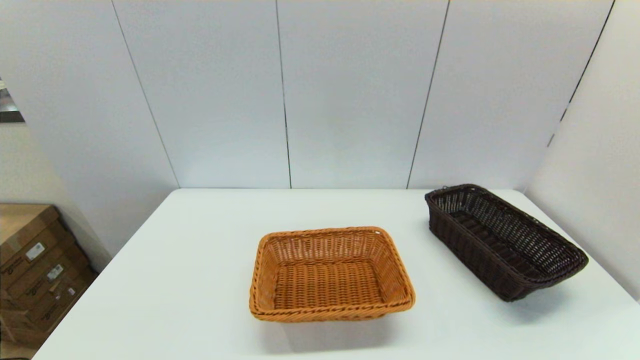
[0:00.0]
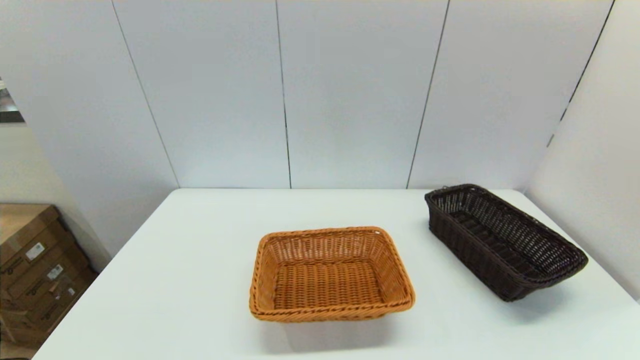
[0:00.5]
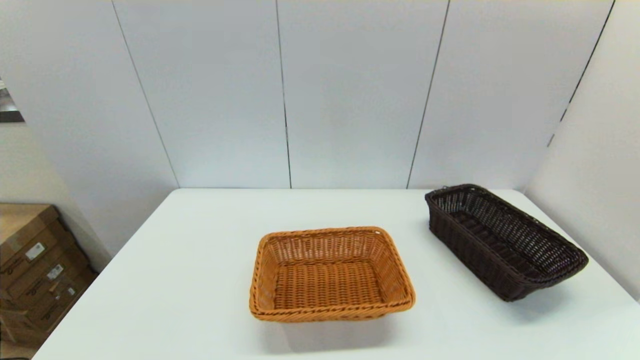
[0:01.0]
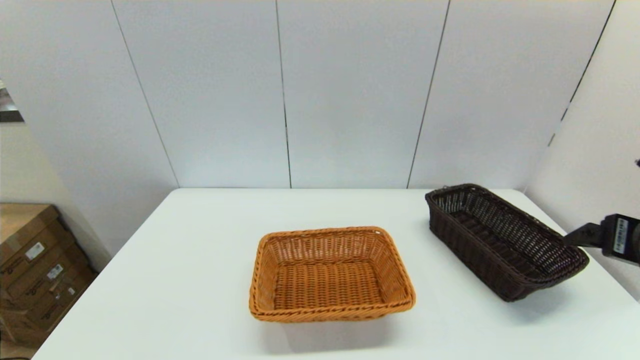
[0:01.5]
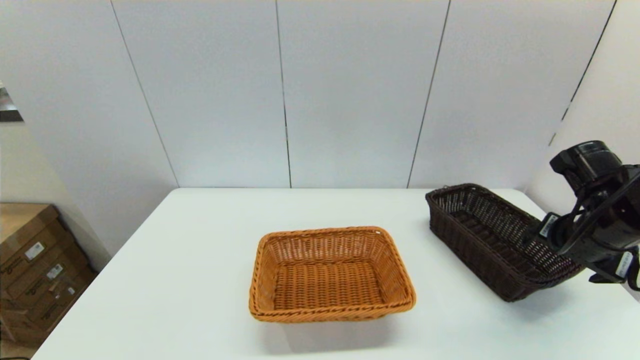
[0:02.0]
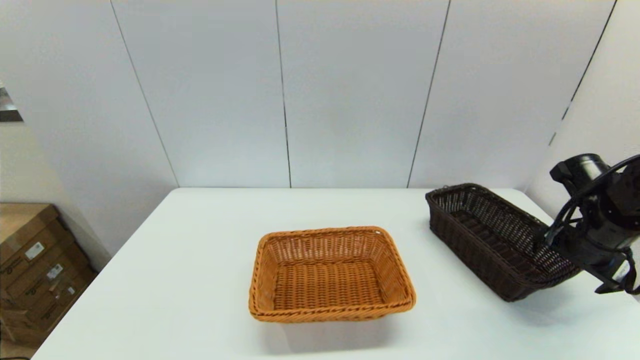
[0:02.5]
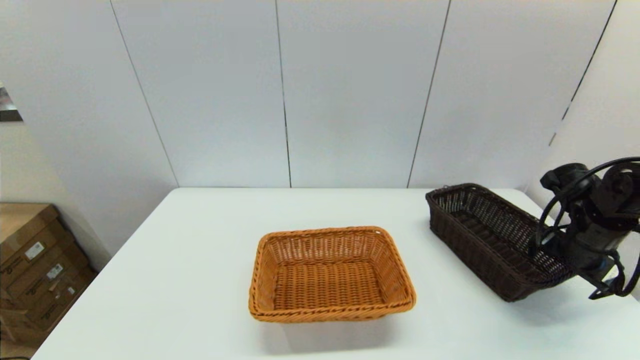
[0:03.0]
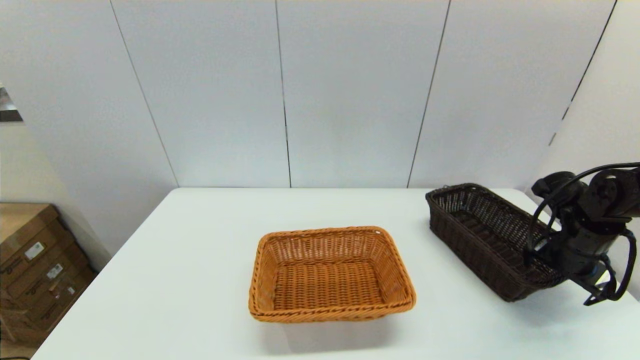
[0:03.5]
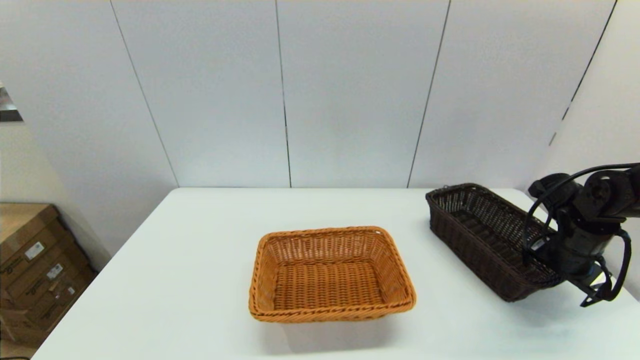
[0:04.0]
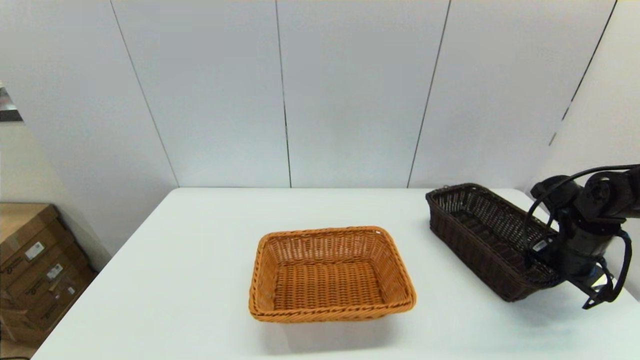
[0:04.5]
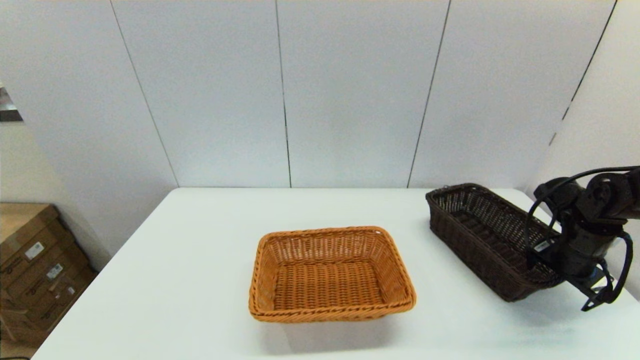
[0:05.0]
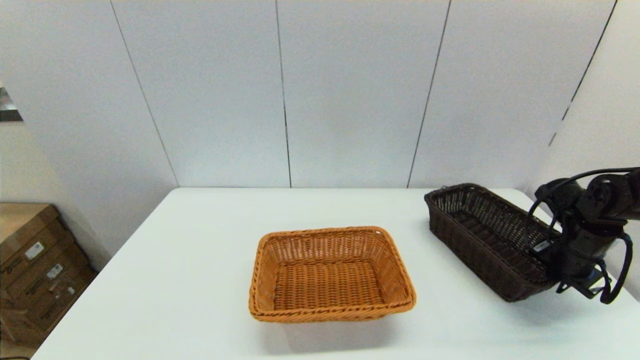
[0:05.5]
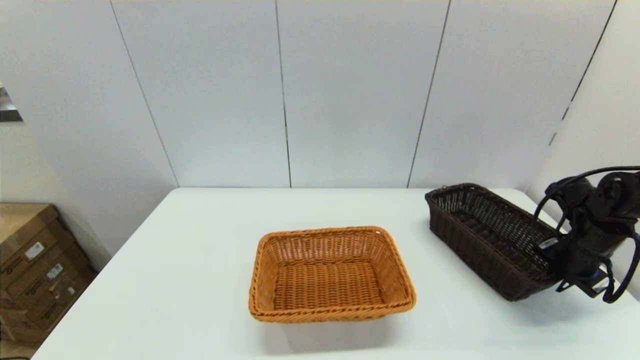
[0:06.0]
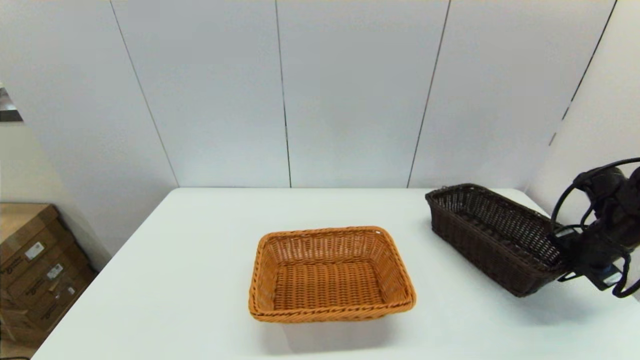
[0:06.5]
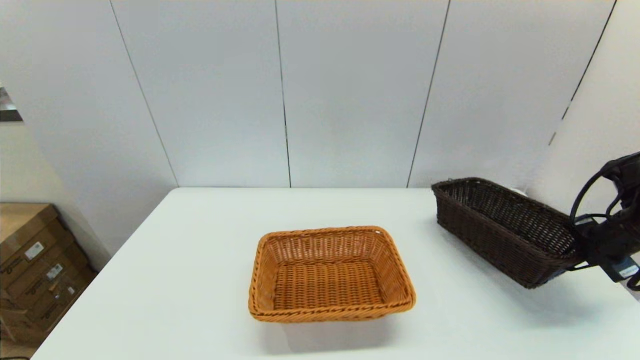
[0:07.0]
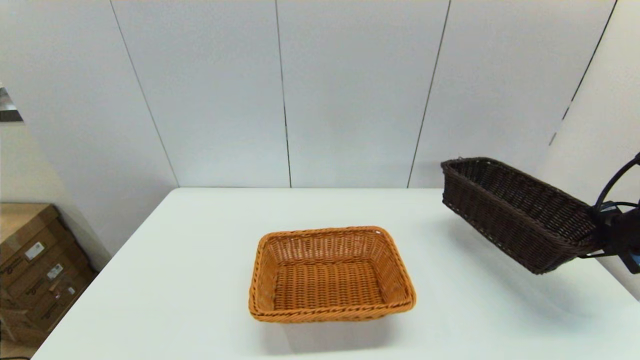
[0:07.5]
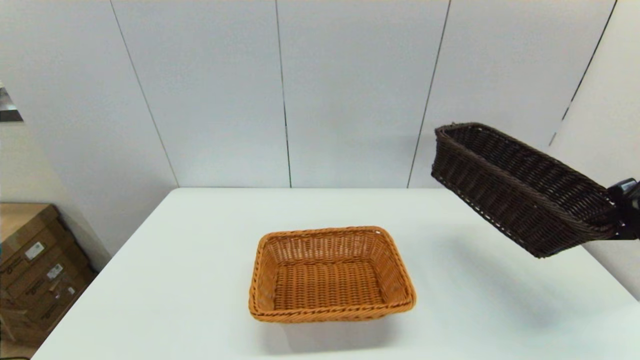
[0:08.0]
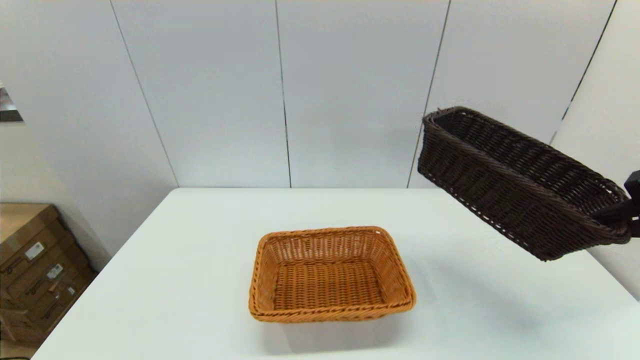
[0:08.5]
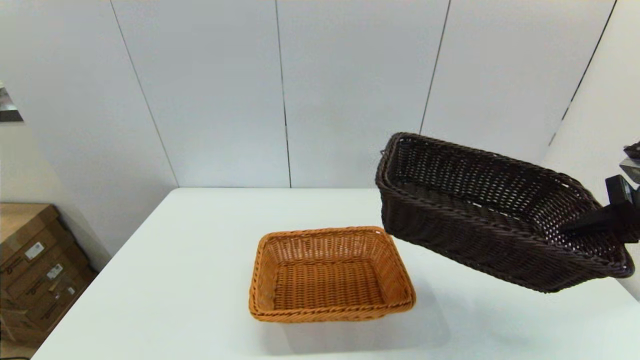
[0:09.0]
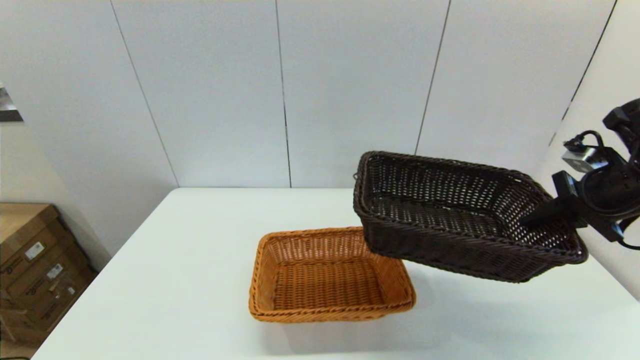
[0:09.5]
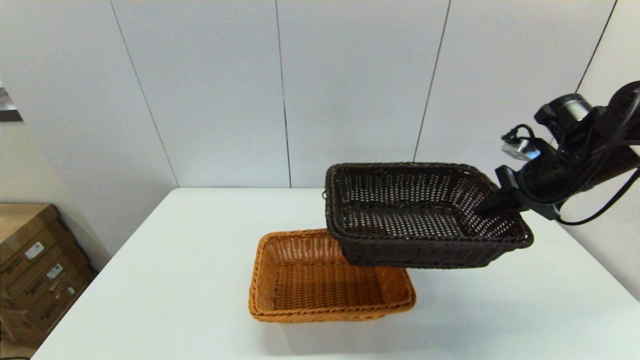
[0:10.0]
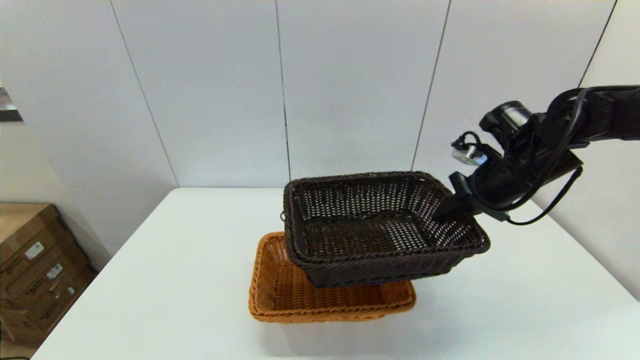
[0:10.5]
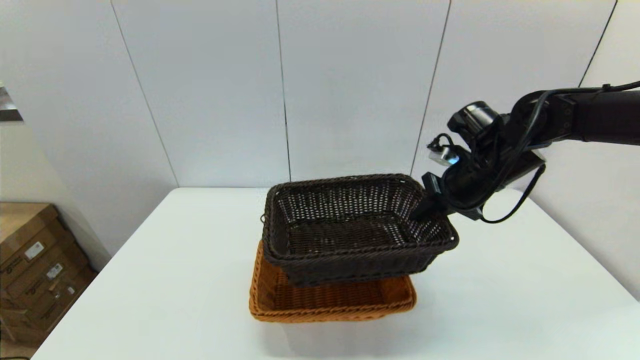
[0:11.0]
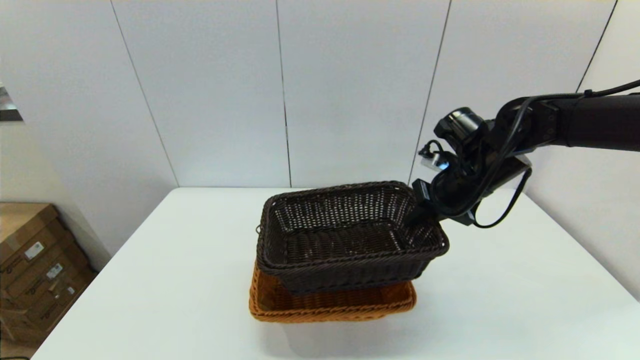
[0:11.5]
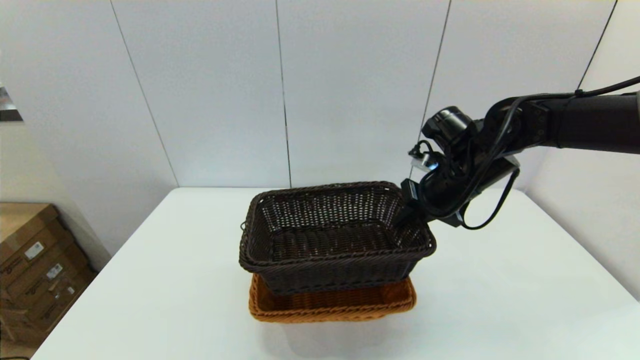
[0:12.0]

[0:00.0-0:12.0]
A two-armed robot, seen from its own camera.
Task of the whole recording: stack a basket on top of another basket.
Step, 0:00.0 to 0:06.5: Grasp the dark basket with the right gripper.
0:00.0 to 0:02.0: The right gripper heads forward, covering approximately 30 cm.
0:02.0 to 0:04.0: The right gripper shifts about 10 cm downward and forward.
0:04.0 to 0:06.0: The right gripper closes up.
0:06.0 to 0:08.0: The right gripper shifts some 15 cm upward and backward.
0:08.0 to 0:10.0: The right gripper goes some 15 cm to the left and forward.
0:10.0 to 0:12.0: The right gripper shifts about 15 cm to the left.

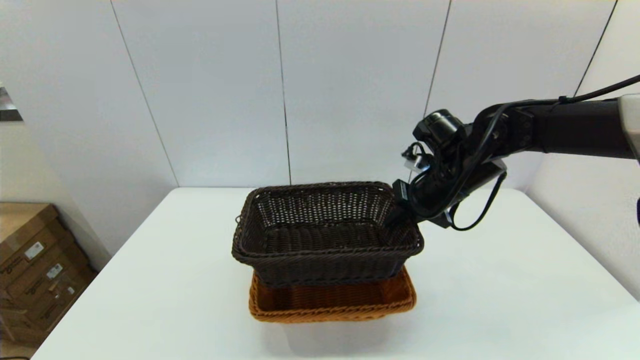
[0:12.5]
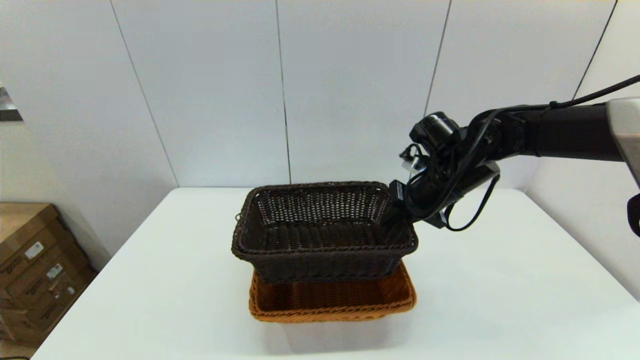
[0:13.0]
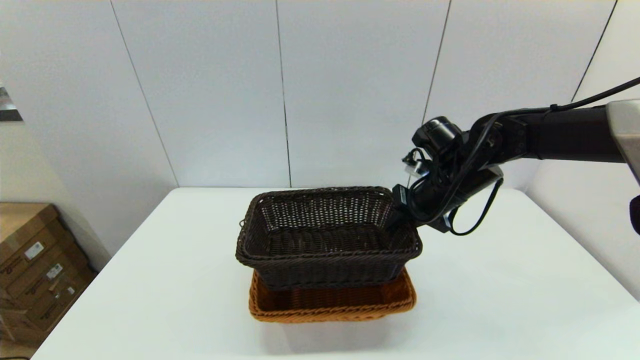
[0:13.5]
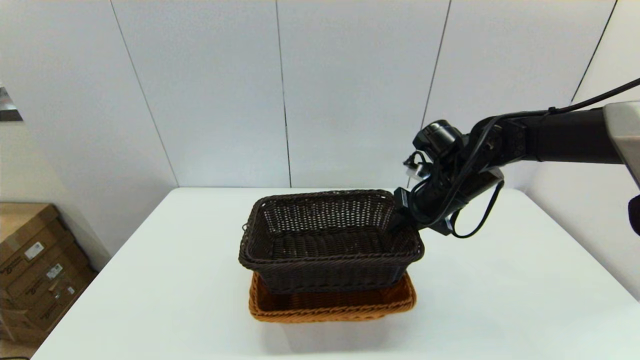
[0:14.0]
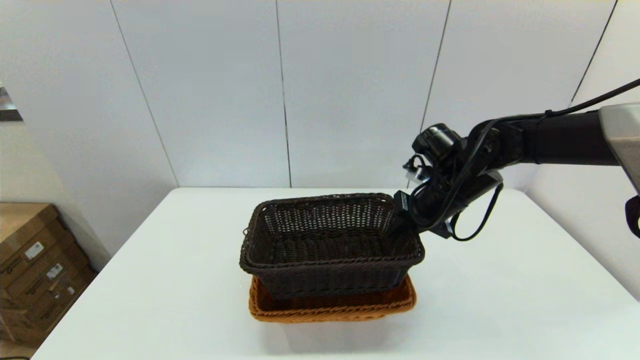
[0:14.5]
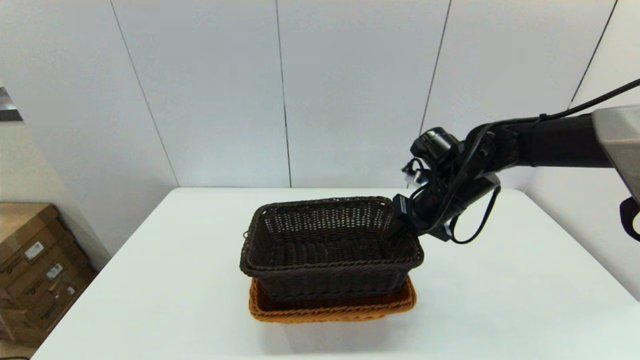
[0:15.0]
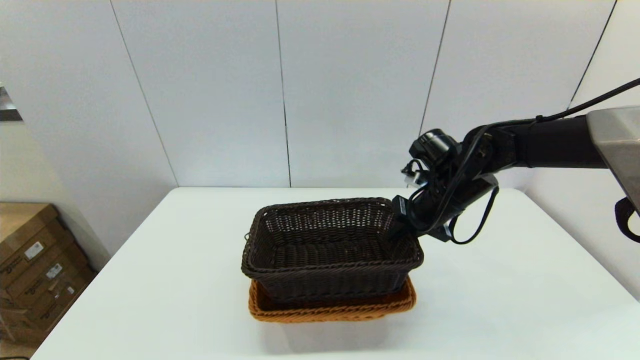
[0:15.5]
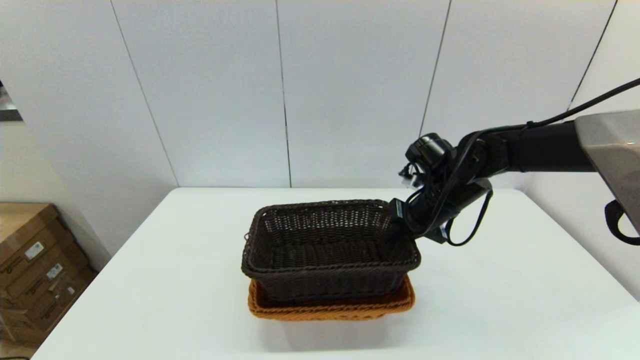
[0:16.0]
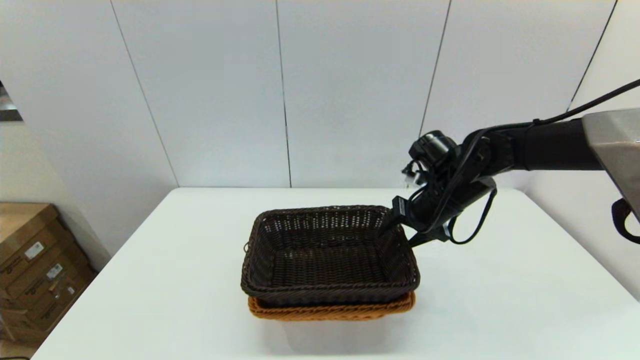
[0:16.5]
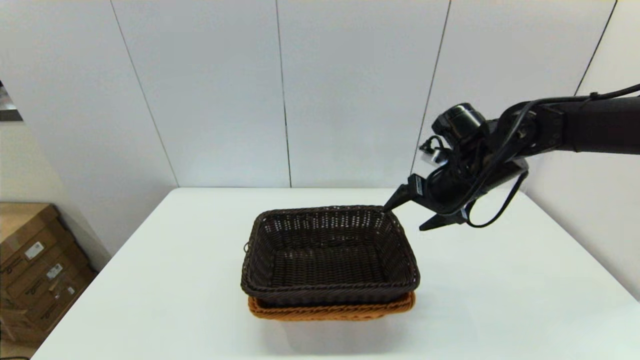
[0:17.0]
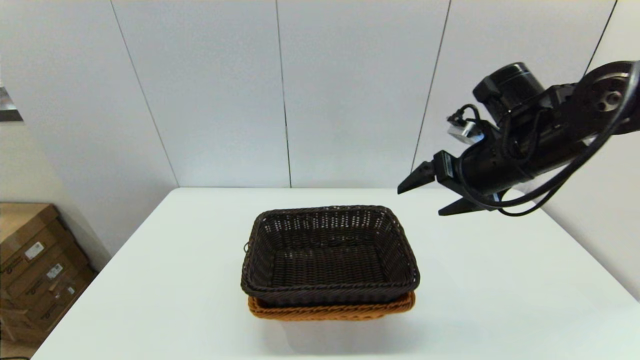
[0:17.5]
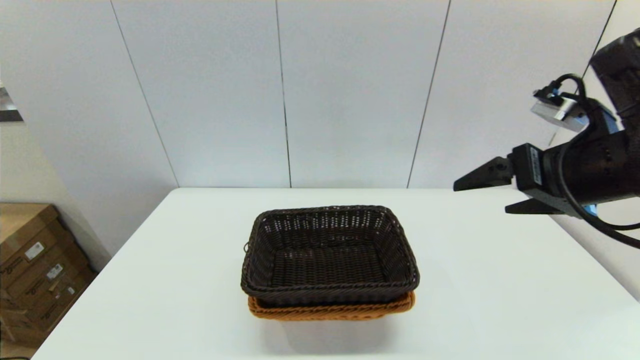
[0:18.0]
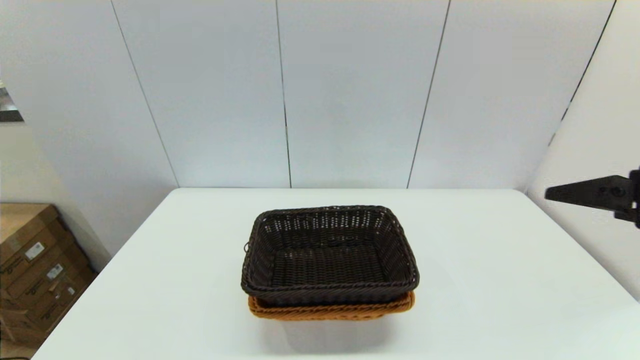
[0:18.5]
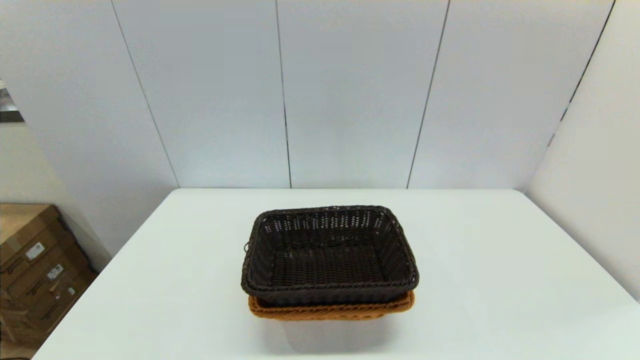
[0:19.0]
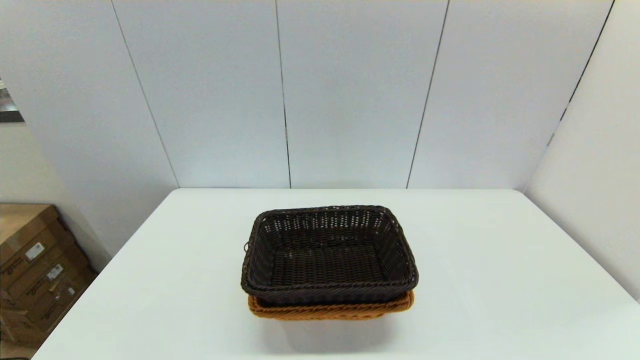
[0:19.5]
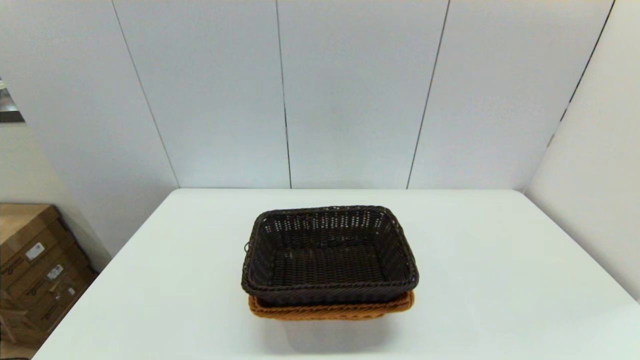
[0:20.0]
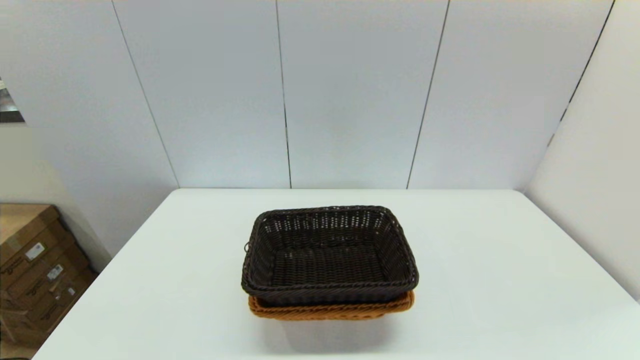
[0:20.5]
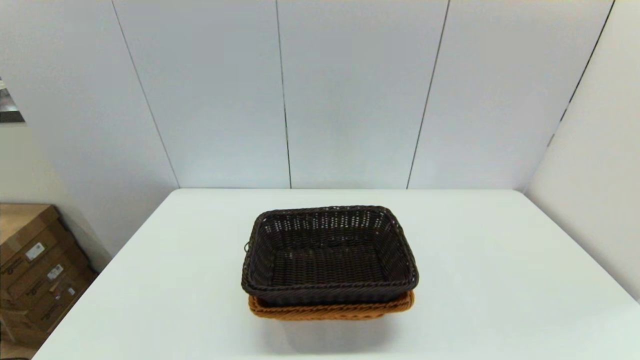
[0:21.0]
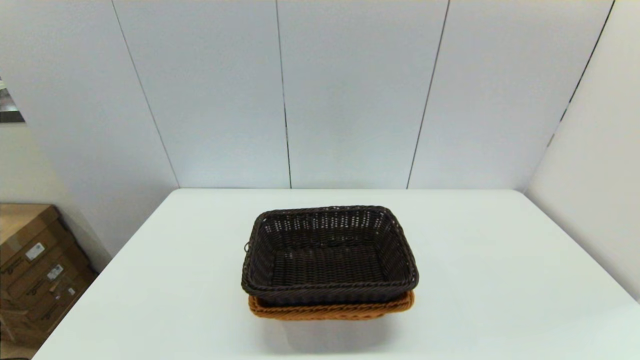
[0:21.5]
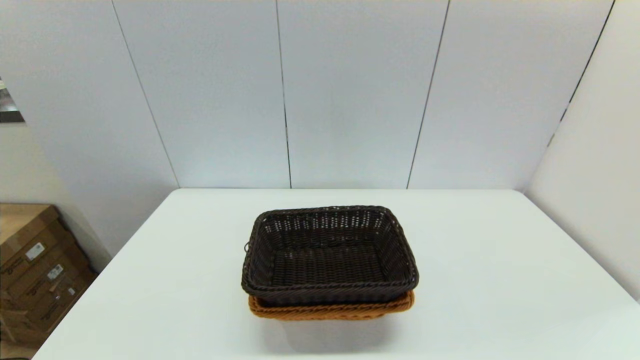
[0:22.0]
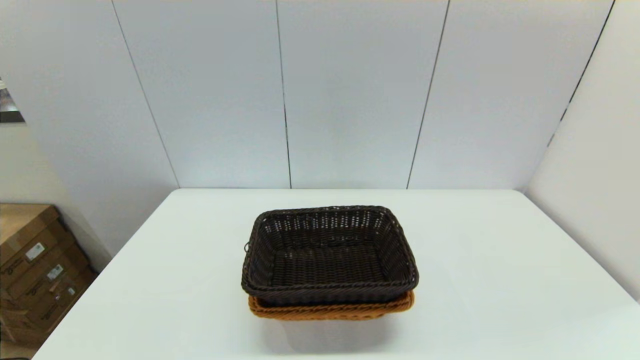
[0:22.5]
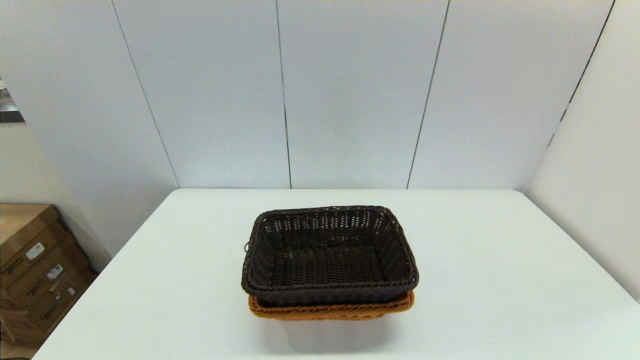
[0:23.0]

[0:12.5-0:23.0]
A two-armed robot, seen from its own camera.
Task of the whole recording: stack a basket on top of another basket.
Step, 0:12.5 to 0:17.0: Place the dark basket into the light color basket with the right gripper.
0:12.5 to 0:14.5: The grippers move only a little.
0:14.5 to 0:16.5: The right gripper opens its fingers.
0:16.5 to 0:19.0: The right gripper heads backward and to the right, covering roughly 35 cm, and opens.
